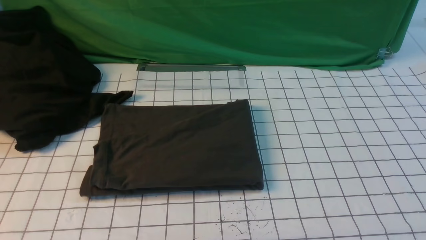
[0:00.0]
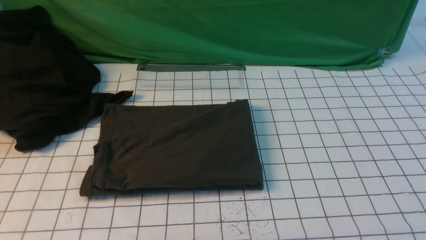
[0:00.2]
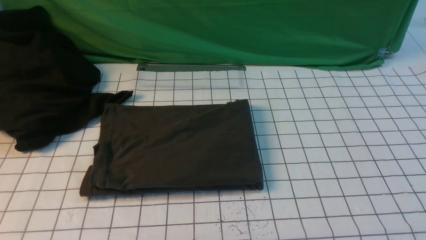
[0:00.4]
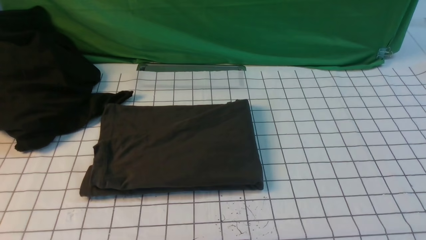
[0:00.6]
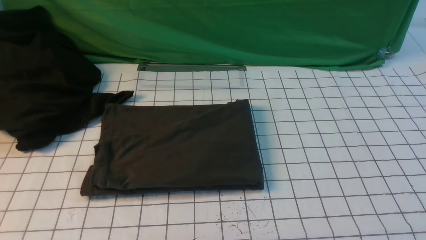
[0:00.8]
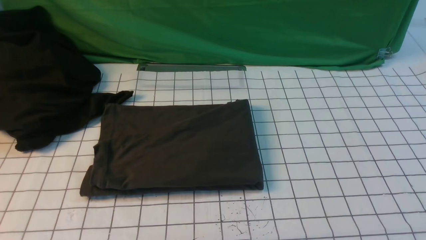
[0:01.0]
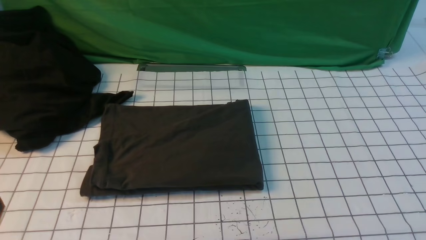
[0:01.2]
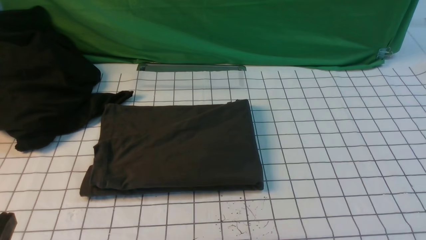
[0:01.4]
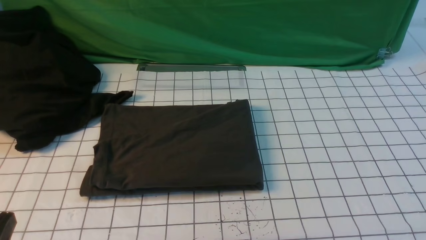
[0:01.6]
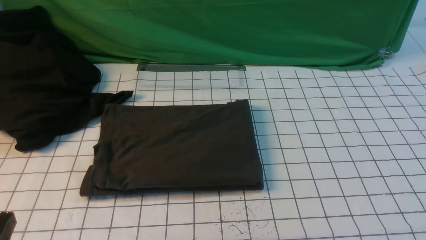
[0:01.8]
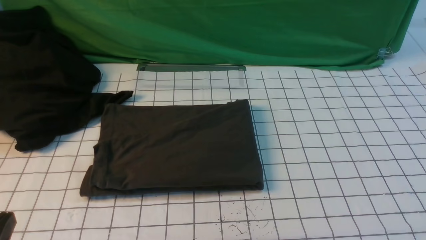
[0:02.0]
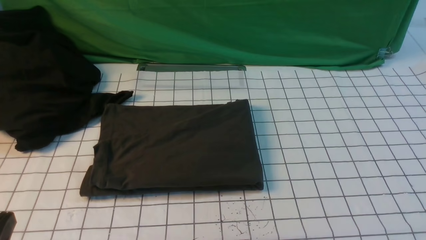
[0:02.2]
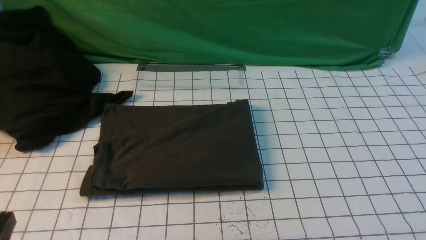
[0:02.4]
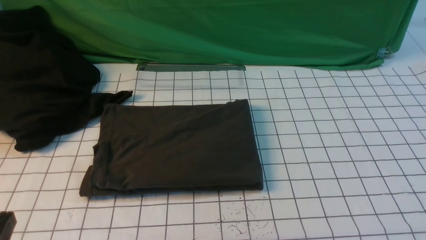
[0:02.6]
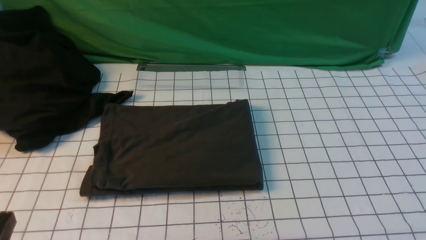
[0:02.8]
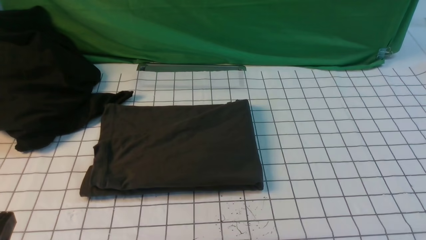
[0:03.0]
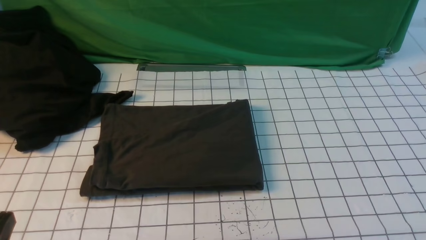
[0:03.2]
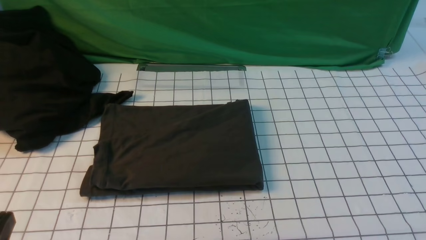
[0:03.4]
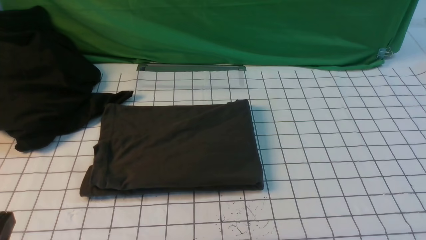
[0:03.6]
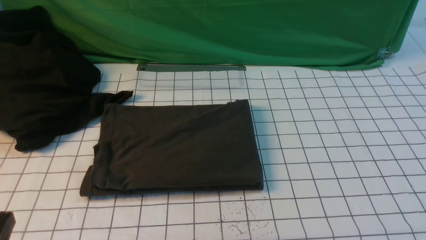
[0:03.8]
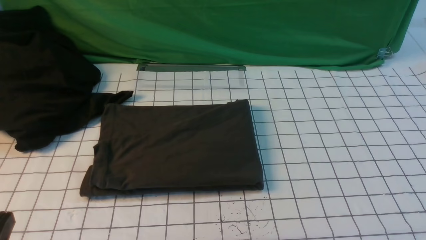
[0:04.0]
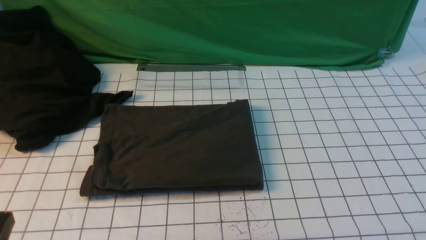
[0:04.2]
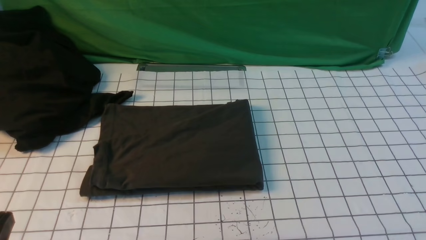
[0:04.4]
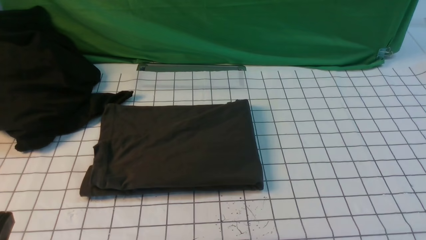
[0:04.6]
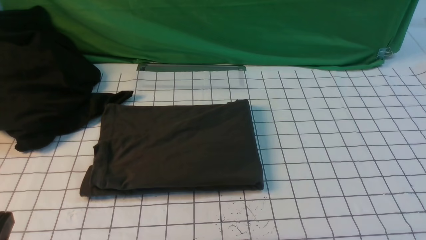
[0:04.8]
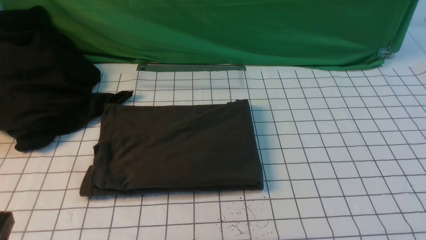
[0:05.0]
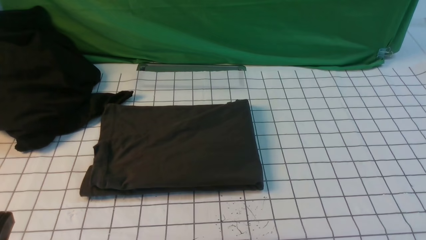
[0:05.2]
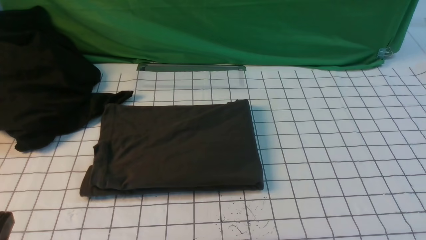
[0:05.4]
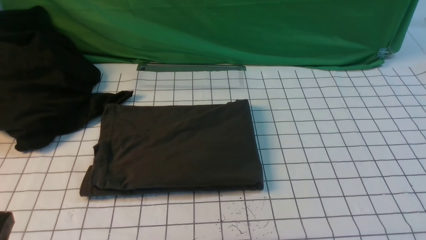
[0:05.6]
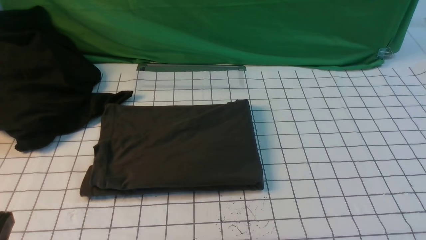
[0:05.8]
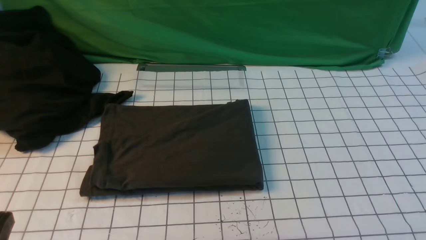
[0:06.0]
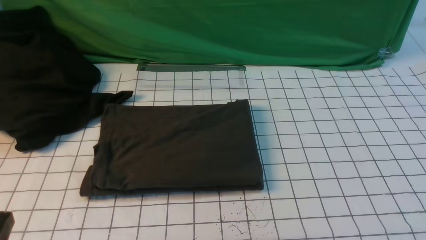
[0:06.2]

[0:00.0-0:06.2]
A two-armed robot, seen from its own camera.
0:04.6 to 0:06.2: Neither gripper changes place.
